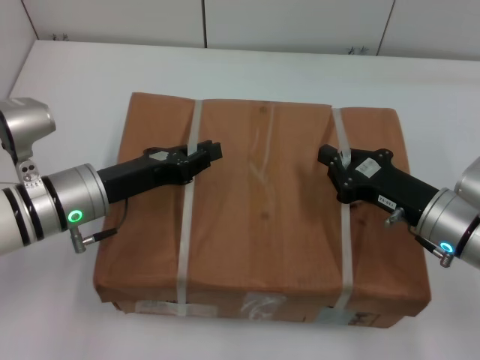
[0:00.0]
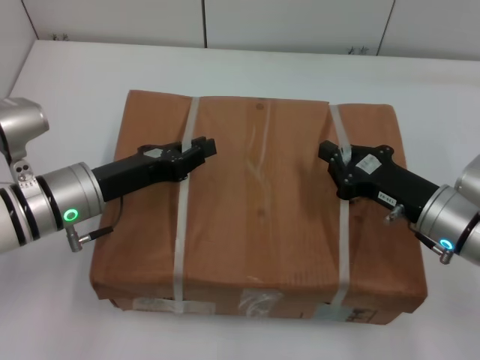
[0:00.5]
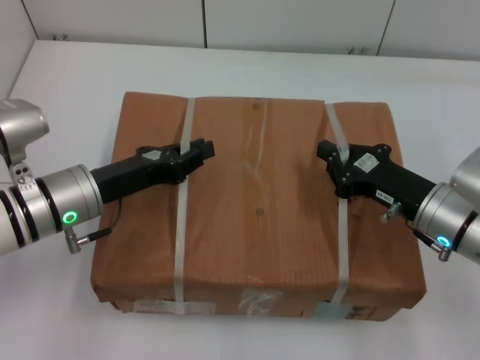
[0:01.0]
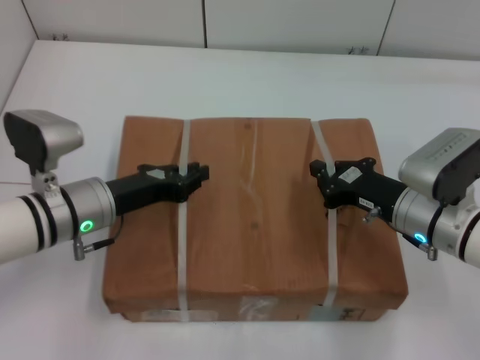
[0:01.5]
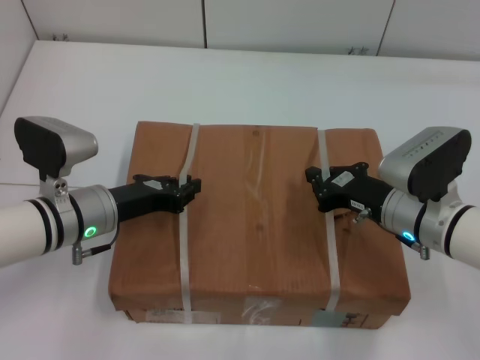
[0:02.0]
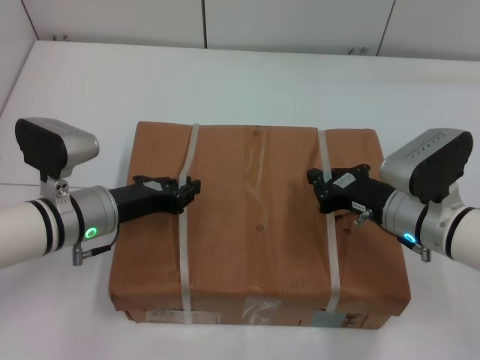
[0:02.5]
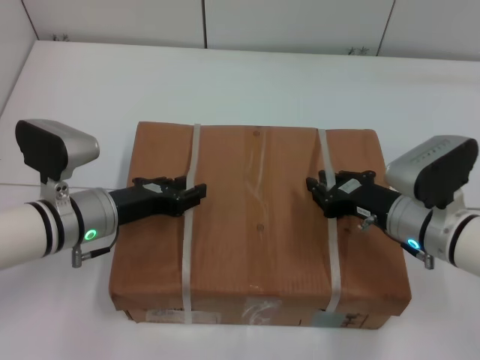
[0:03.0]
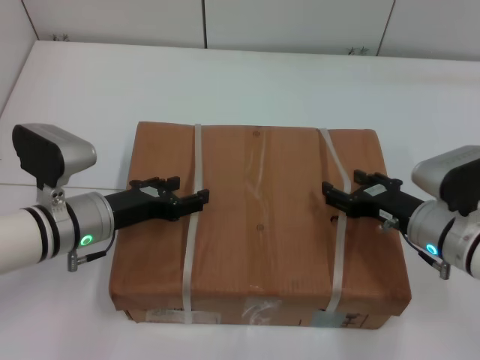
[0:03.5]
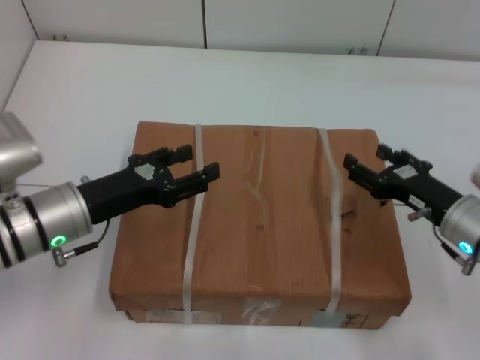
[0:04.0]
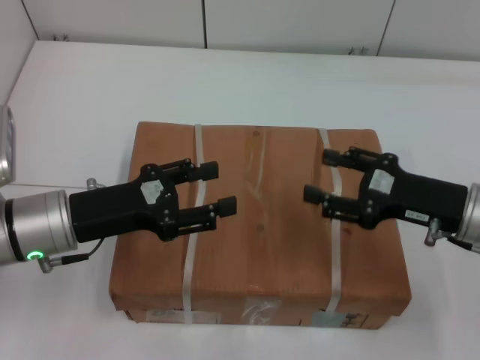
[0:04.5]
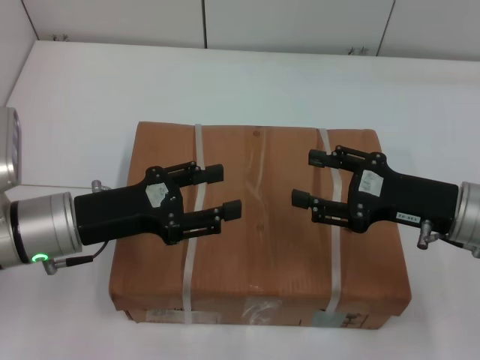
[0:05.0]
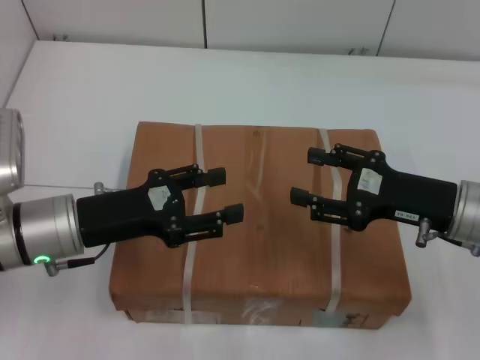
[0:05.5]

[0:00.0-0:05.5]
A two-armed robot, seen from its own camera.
Task of the whole recording: place the box on the table with both arms.
Step, 0:00.0 to 0:01.5: Place the box on the table with left gripper.
Step, 0:00.0 to 0:01.5: Place the box on the table with right gripper.
Step, 0:02.0 to 0:03.0: Loosen the box on the table with left gripper.
Step, 0:02.0 to 0:03.0: Loosen the box on the table with right gripper.
0:02.0 to 0:03.5: The left gripper opens. The right gripper opens its fingers.
0:03.5 to 0:05.5: The two grippers go roughly 5 cm upward.
